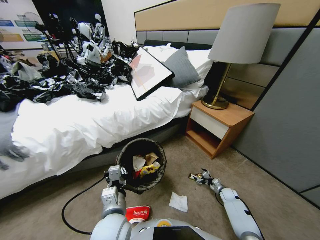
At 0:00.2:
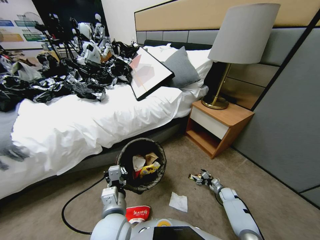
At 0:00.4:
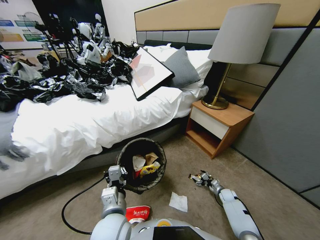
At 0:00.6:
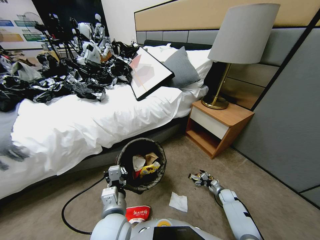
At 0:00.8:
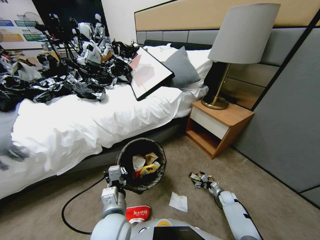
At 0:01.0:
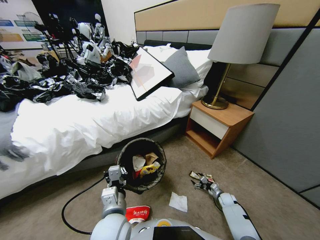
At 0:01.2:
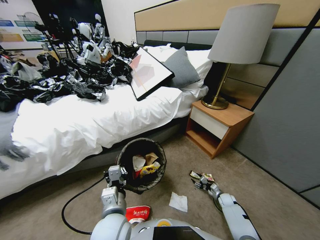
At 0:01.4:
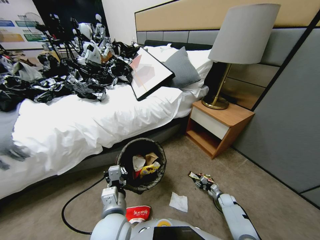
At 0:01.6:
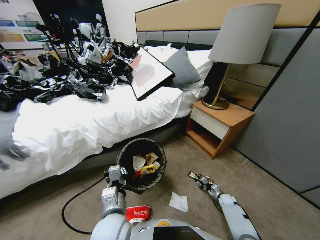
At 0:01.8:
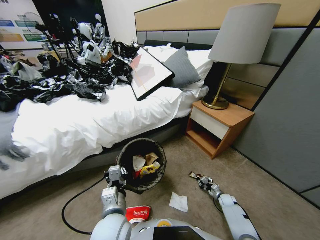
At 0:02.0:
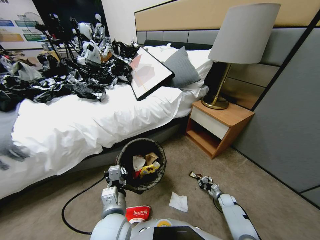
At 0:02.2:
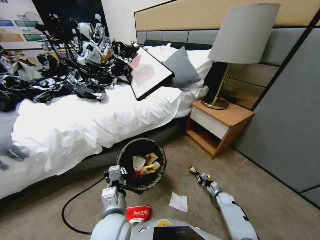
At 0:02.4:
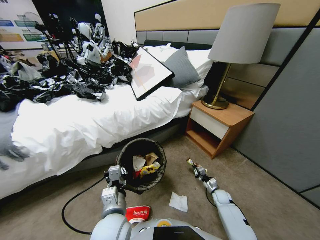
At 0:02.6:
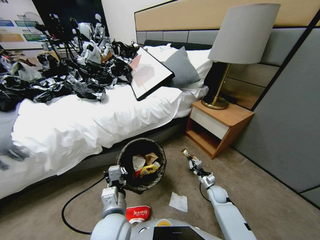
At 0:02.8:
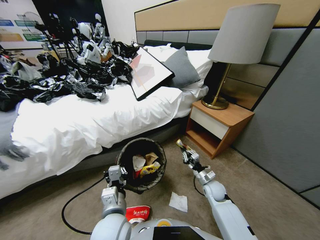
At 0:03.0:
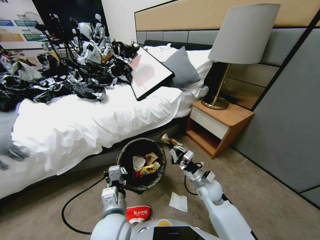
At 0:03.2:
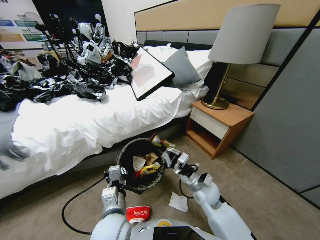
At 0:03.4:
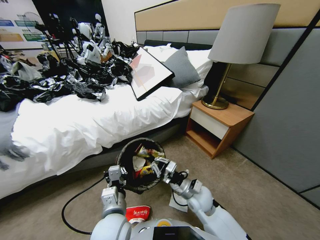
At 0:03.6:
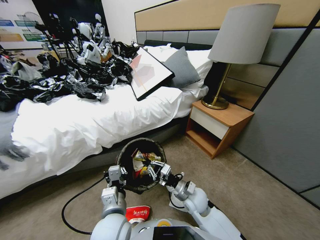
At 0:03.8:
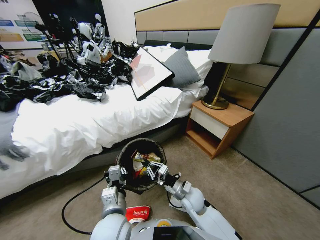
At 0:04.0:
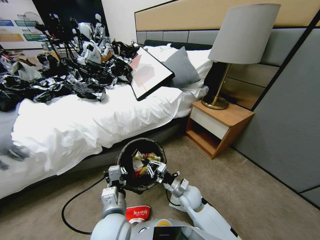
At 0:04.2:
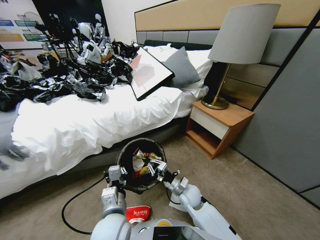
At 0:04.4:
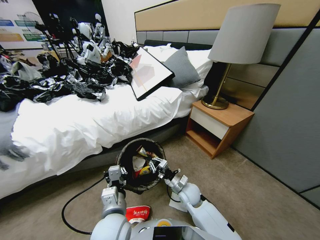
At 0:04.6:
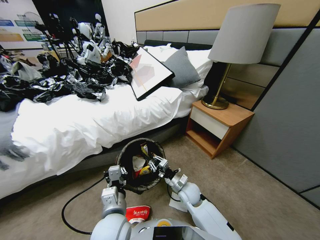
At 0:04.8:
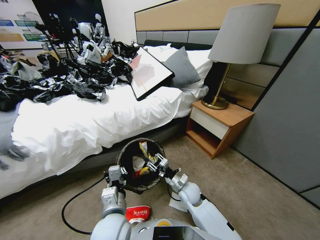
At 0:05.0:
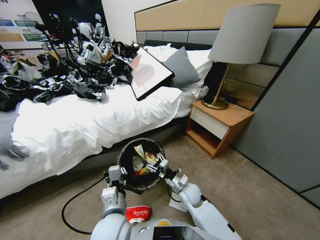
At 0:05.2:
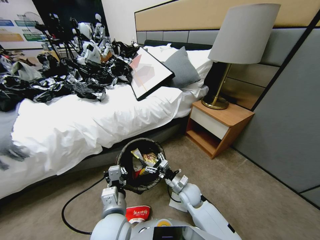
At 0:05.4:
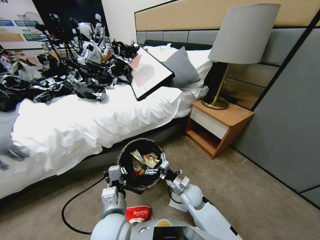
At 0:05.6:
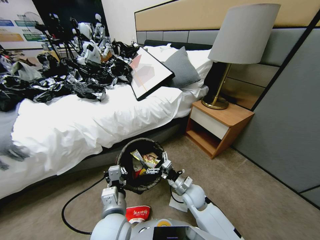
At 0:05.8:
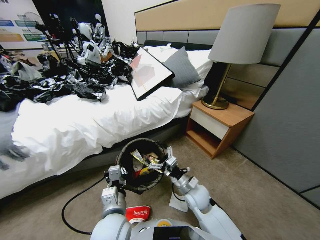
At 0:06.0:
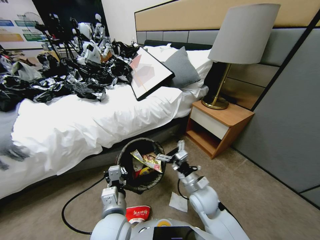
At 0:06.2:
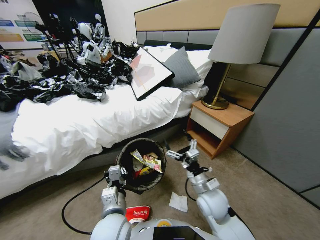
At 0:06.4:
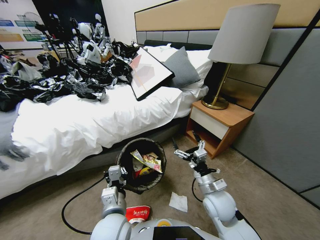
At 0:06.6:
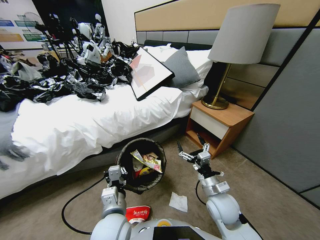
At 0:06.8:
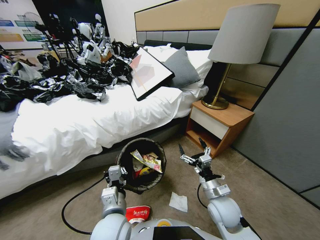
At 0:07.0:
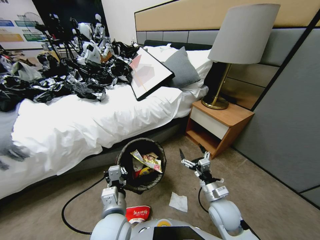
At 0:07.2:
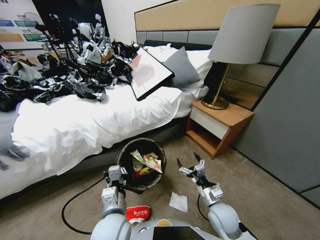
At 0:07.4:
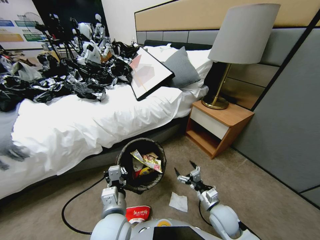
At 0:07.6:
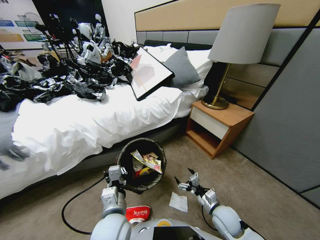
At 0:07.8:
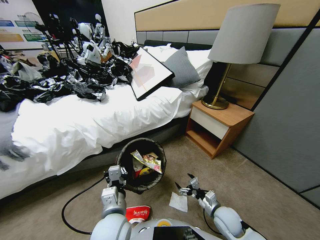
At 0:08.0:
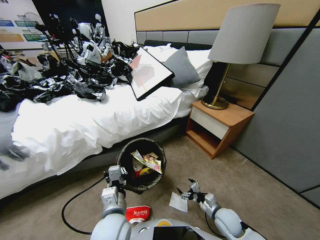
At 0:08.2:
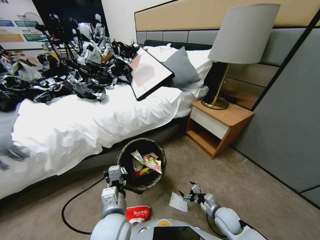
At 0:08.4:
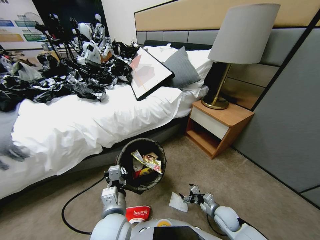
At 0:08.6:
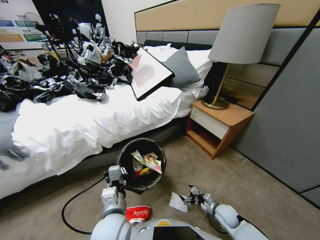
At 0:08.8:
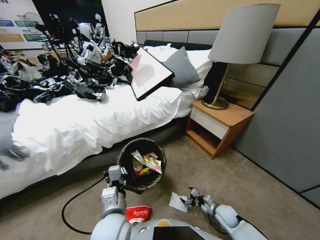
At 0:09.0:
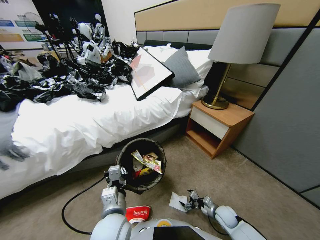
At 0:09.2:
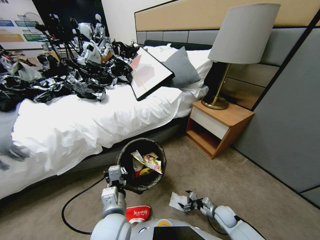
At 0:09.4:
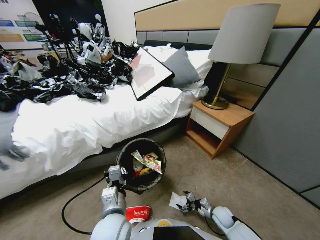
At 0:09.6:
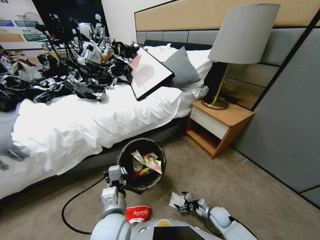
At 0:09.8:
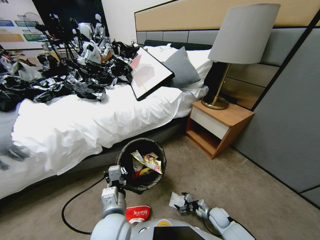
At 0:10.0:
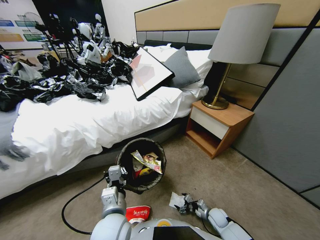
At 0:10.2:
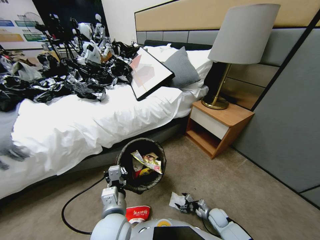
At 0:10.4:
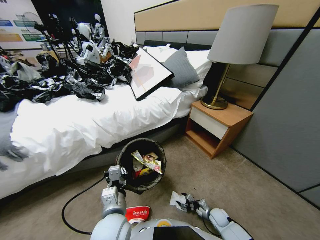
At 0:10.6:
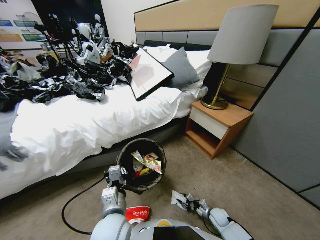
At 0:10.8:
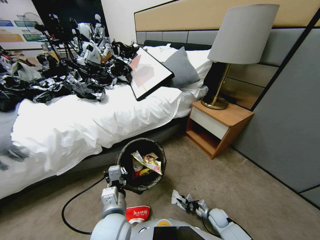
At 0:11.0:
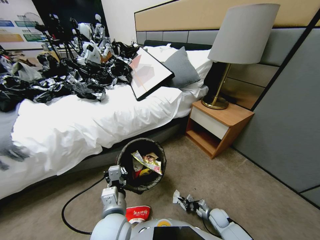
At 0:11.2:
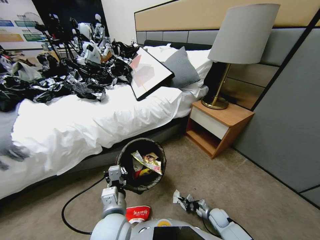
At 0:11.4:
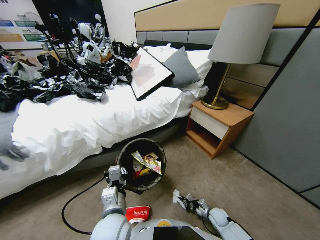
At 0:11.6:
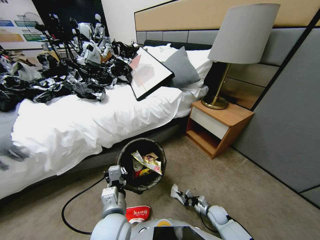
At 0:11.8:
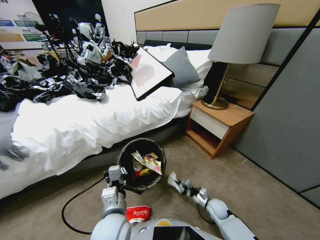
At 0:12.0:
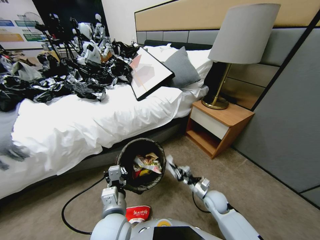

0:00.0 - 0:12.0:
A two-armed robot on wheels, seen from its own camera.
Task of the whole recording: Pick up the trash bin, then pick up the garbage from the floor and place it into the trash bin.
0:00.0 - 0:01.6: The right gripper closes its fingers.
0:01.6 - 0:03.0: The right gripper is displaced upward and to the left by some 40 cm.
0:03.0 - 0:04.4: The right gripper goes approximately 10 cm downward and to the left.
0:04.4 - 0:06.0: The right gripper is displaced upward and backward by roughly 10 cm, and opens its fingers.
0:06.0 - 0:07.6: The right gripper heads downward and to the right, covering roughly 15 cm.
0:07.6 - 0:09.0: The right gripper heads downward and to the right, covering about 15 cm.
0:09.0 - 0:10.4: The right gripper heads downward, covering approximately 5 cm, and closes.
0:10.4 - 0:12.0: The right gripper goes about 20 cm upward, and closes up.

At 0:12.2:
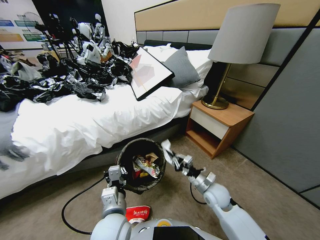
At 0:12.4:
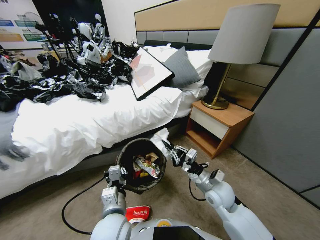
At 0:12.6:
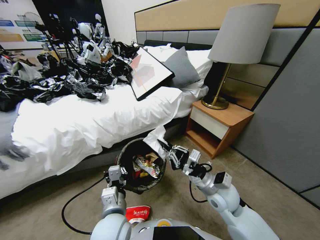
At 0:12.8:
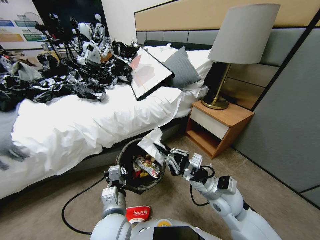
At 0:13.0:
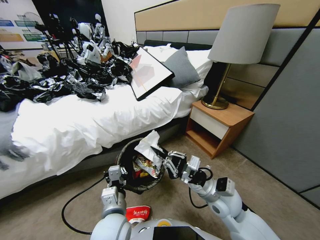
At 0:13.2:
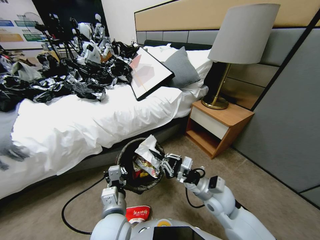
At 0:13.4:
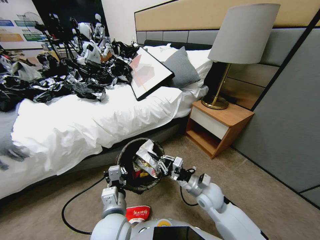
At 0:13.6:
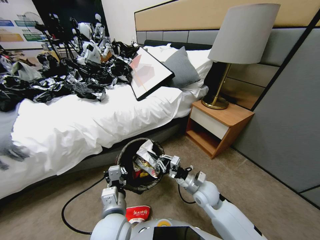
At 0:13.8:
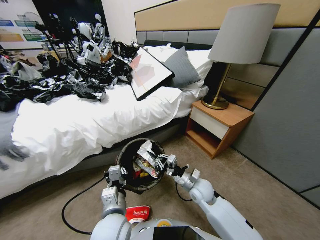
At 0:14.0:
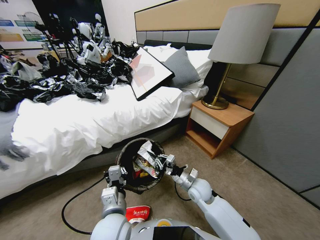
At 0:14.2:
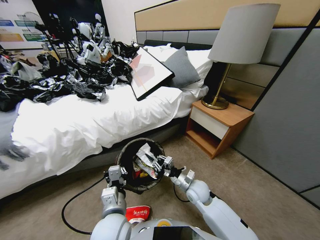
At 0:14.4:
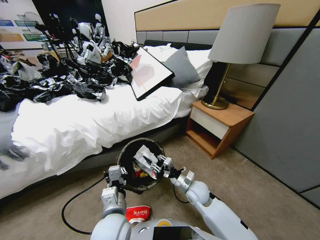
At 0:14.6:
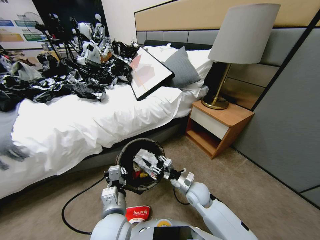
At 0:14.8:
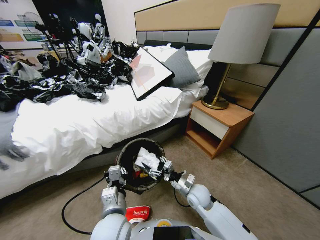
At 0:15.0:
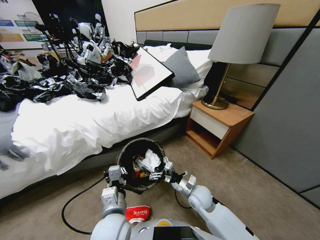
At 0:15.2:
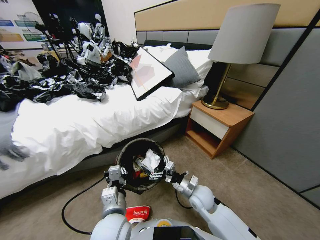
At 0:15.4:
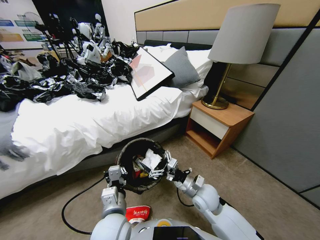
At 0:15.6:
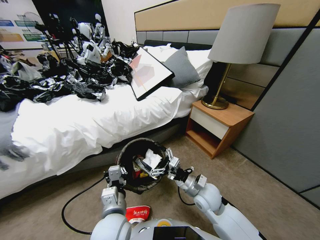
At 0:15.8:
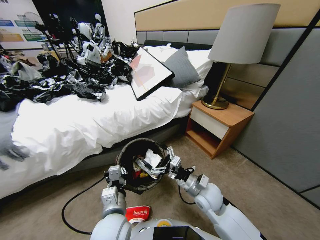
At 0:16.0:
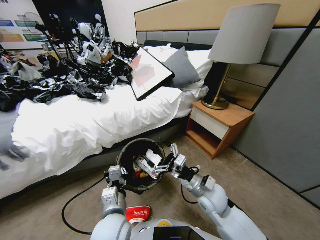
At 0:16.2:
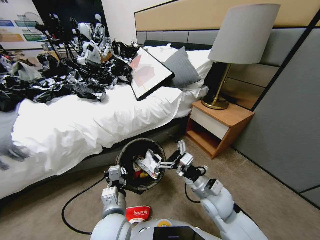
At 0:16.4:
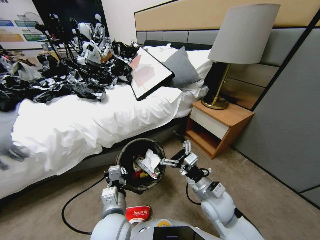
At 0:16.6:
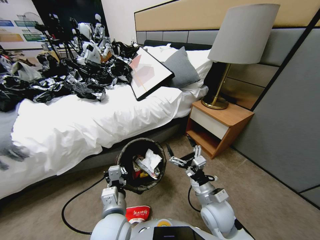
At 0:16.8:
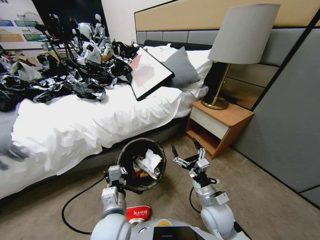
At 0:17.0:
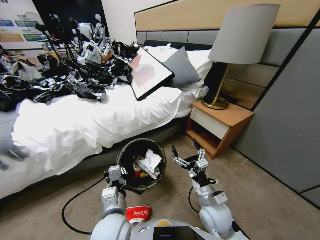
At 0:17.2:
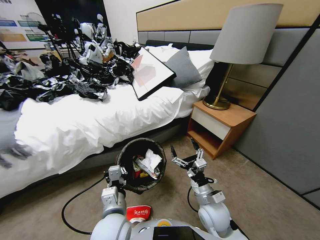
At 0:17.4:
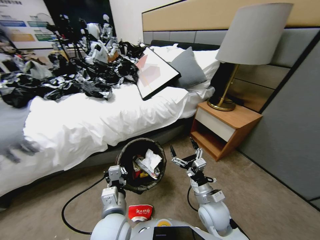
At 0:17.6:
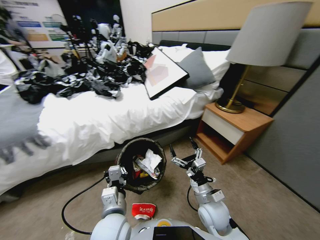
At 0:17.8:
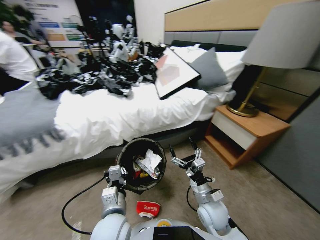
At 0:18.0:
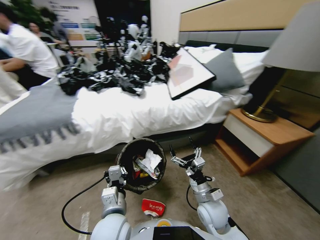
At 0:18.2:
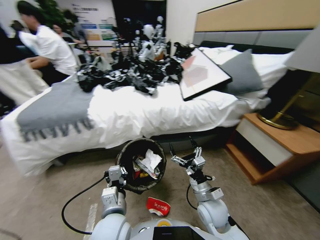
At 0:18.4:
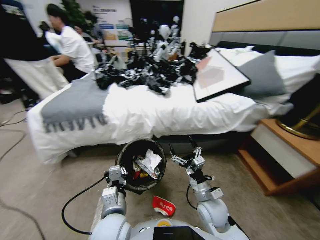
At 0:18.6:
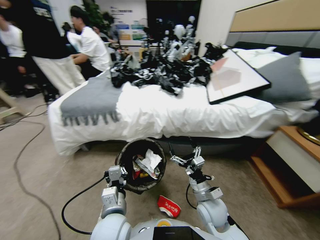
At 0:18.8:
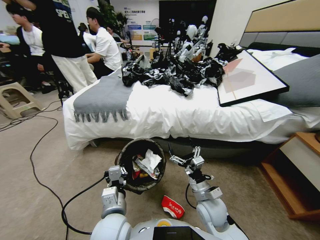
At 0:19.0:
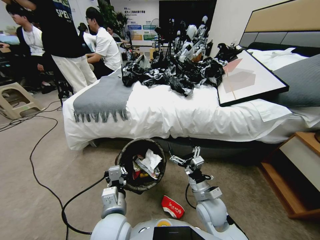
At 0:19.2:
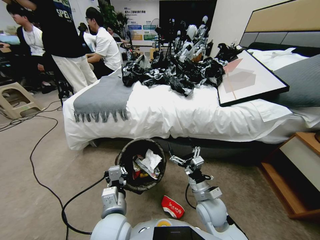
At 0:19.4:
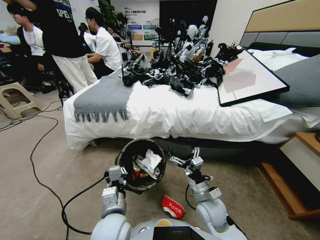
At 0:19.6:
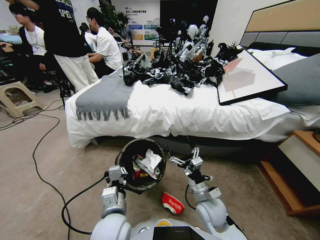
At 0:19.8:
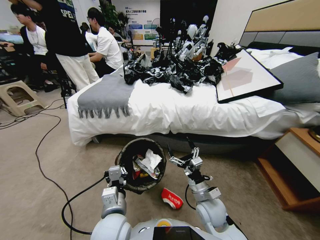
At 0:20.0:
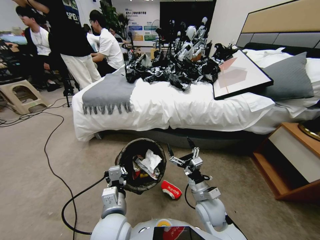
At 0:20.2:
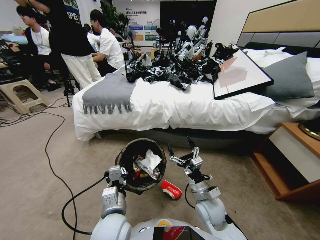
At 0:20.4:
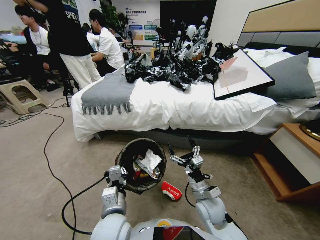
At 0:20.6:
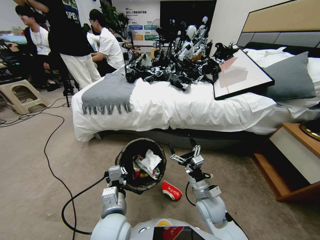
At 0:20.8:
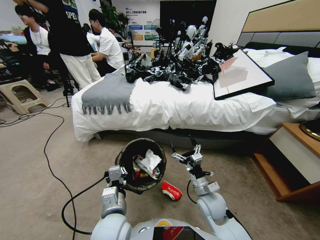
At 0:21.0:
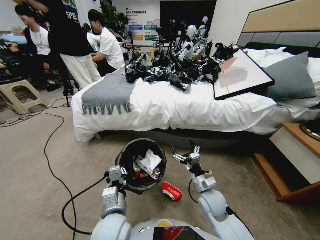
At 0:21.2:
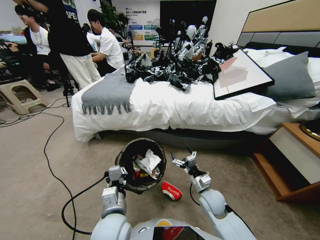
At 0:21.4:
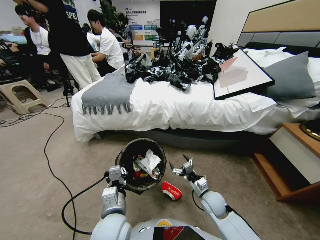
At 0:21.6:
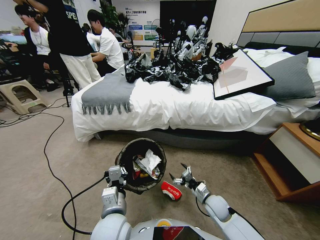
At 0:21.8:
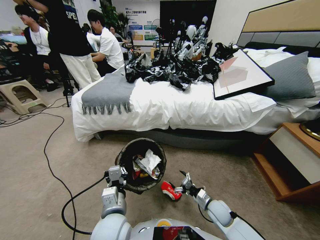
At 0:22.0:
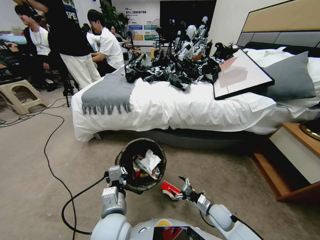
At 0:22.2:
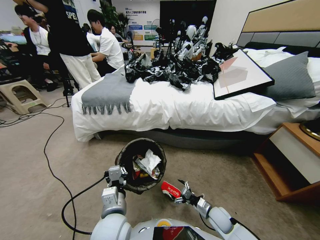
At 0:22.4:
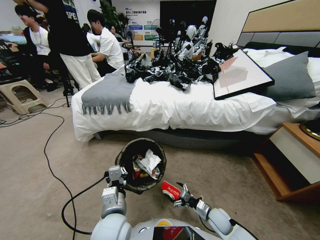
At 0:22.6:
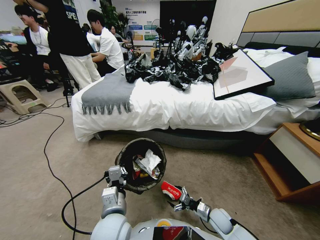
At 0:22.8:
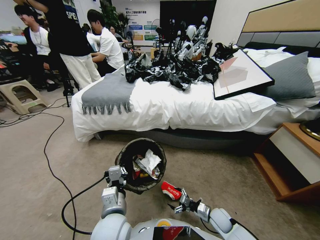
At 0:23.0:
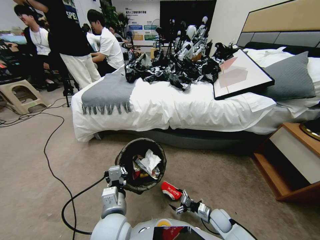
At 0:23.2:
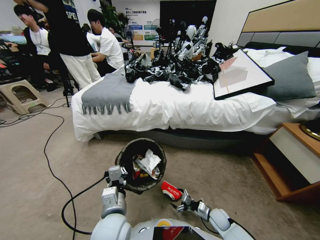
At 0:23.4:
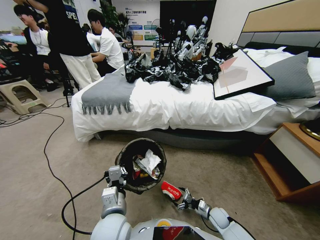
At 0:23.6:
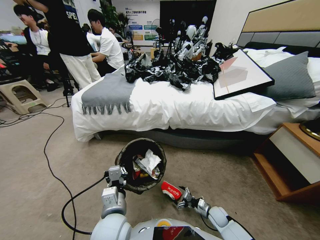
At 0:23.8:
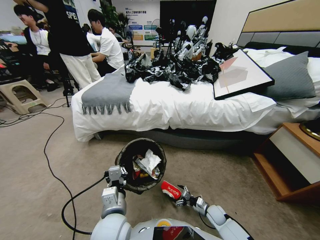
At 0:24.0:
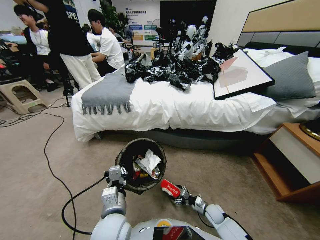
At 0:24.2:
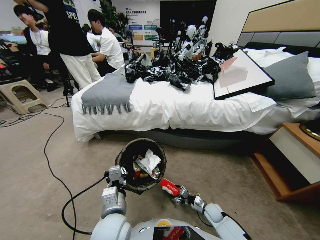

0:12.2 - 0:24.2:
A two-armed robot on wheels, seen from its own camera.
Task of the whole recording: Pick up the trash bin, then pick up the garbage from the floor and place it into the trash bin.
0:12.2 - 0:13.8: The right gripper heads downward, covering some 5 cm.
0:13.8 - 0:15.2: The right gripper opens.
0:15.2 - 0:16.6: The right gripper heads backward, covering about 5 cm.
0:19.8 - 0:21.2: The right gripper heads downward, covering some 5 cm.
0:21.2 - 0:22.6: The right gripper heads downward and to the right, covering roughly 15 cm.
0:22.6 - 0:24.2: The right gripper goes roughly 5 cm downward, and closes.
